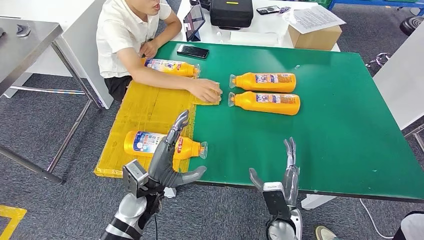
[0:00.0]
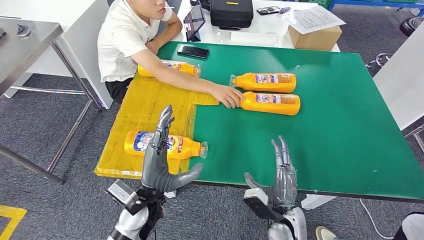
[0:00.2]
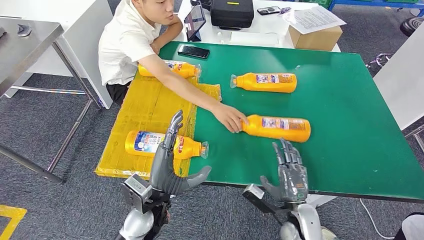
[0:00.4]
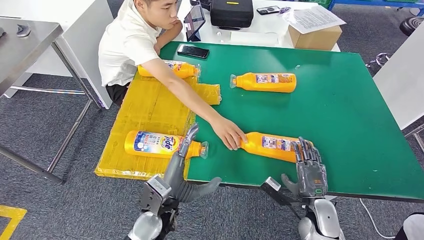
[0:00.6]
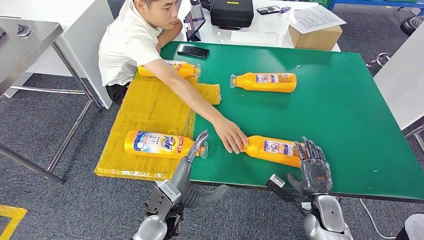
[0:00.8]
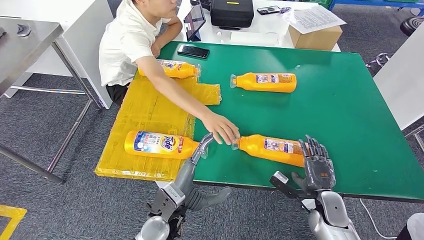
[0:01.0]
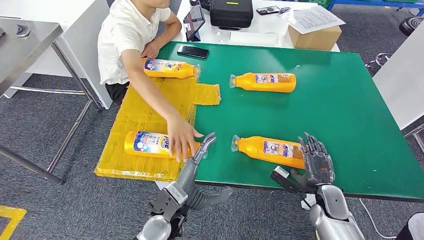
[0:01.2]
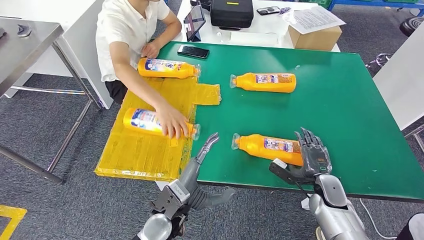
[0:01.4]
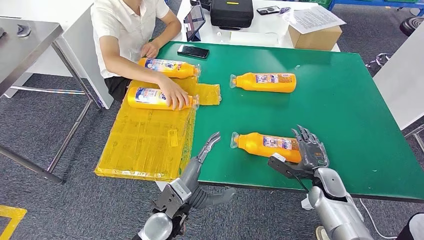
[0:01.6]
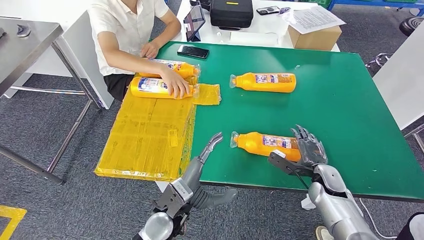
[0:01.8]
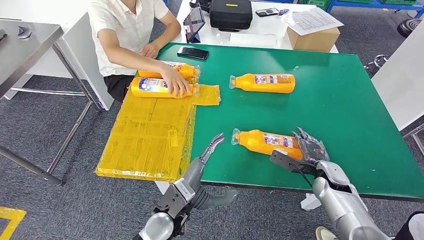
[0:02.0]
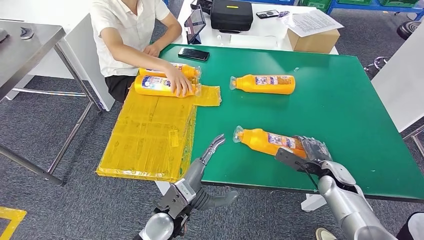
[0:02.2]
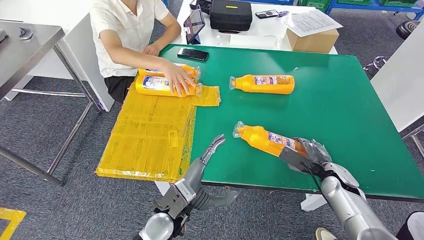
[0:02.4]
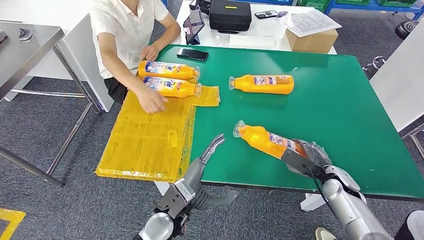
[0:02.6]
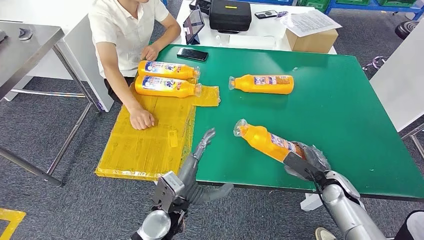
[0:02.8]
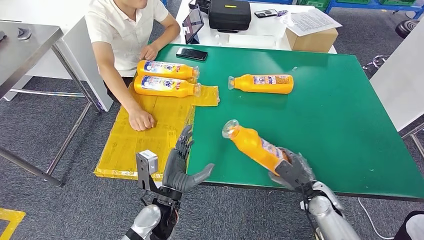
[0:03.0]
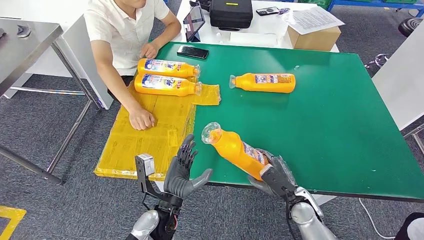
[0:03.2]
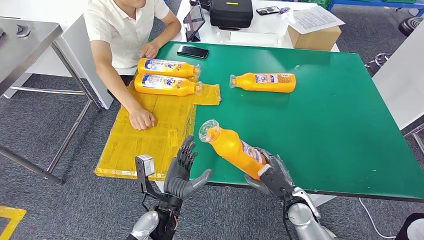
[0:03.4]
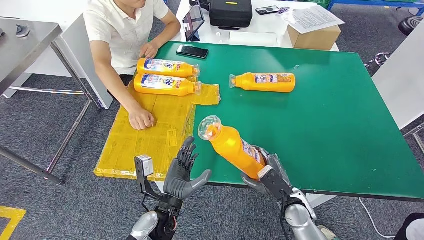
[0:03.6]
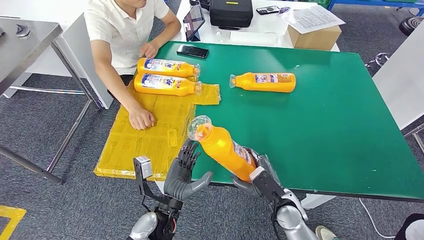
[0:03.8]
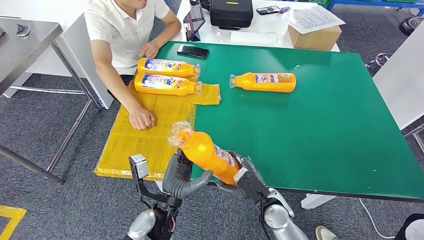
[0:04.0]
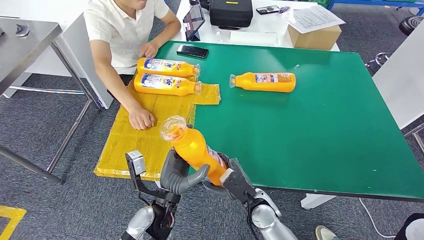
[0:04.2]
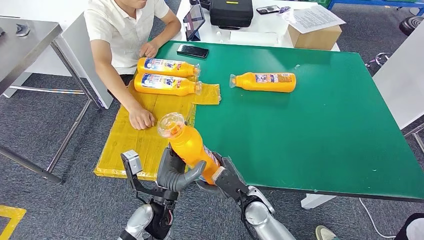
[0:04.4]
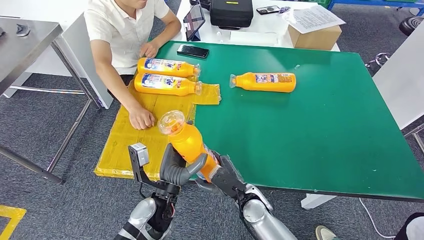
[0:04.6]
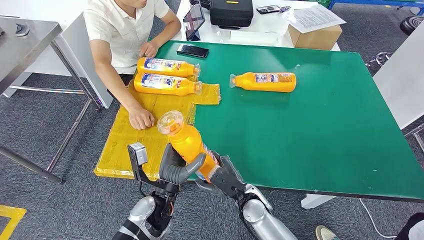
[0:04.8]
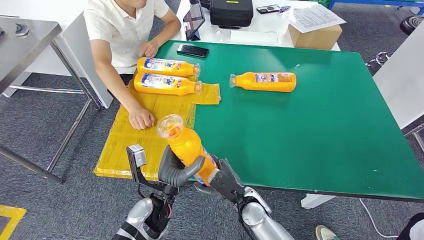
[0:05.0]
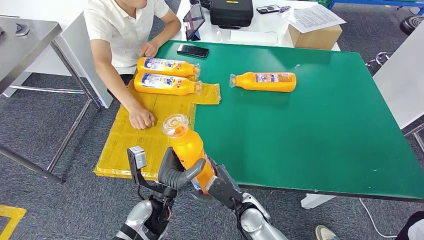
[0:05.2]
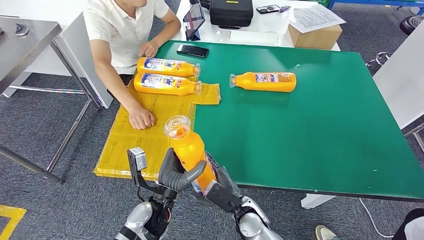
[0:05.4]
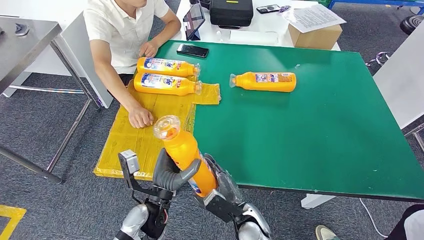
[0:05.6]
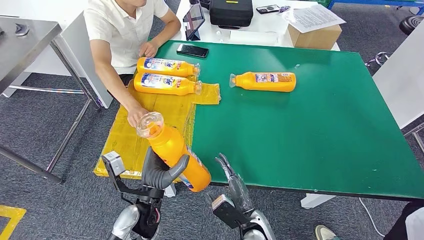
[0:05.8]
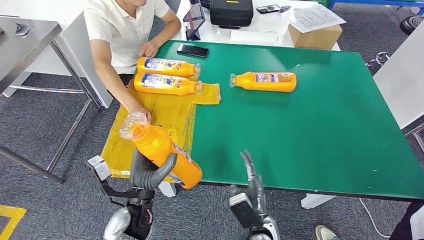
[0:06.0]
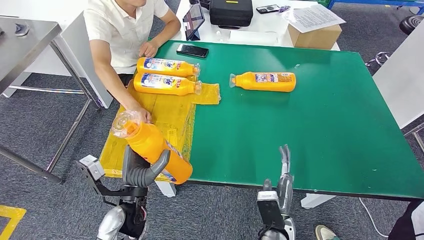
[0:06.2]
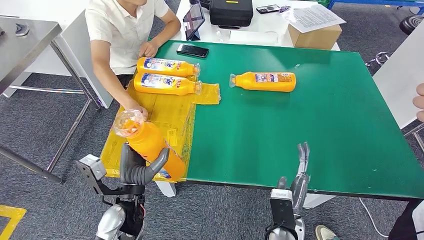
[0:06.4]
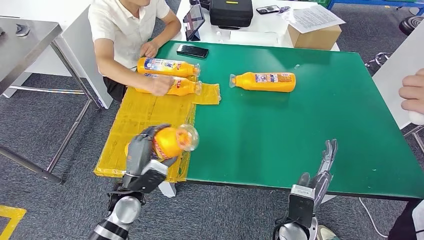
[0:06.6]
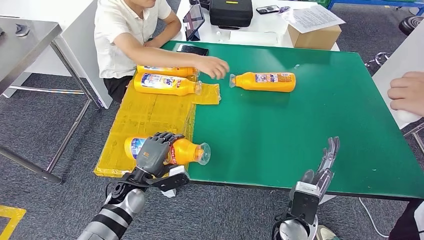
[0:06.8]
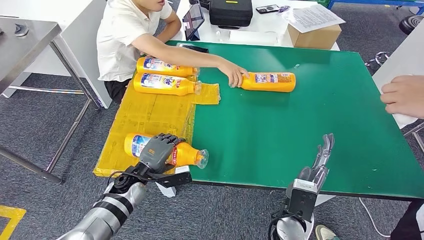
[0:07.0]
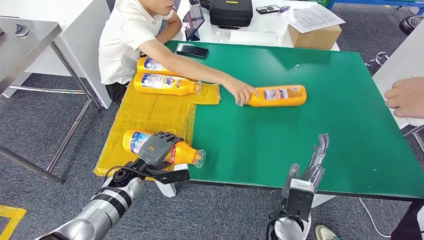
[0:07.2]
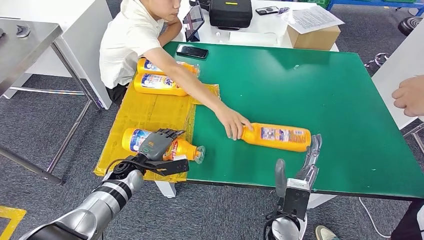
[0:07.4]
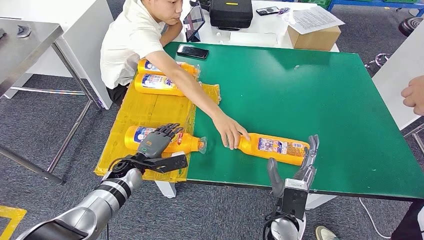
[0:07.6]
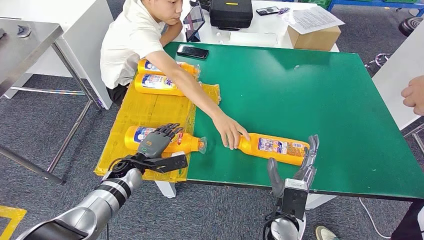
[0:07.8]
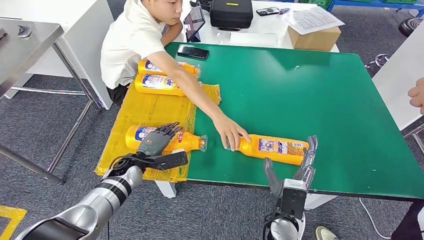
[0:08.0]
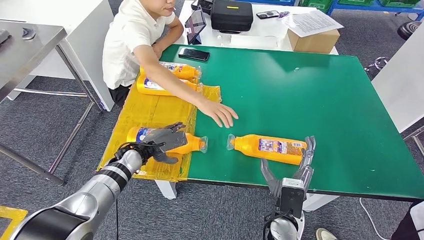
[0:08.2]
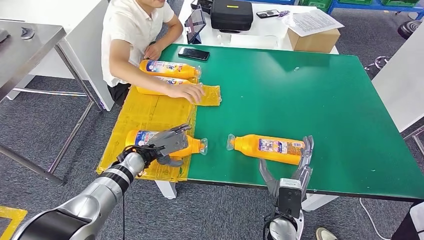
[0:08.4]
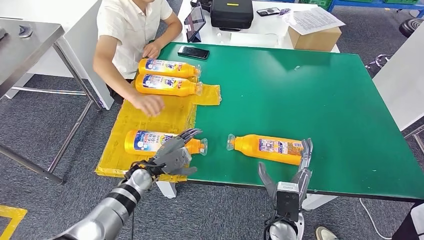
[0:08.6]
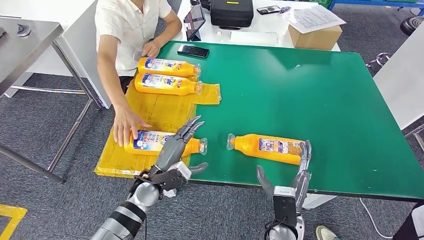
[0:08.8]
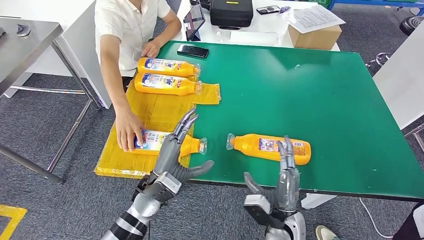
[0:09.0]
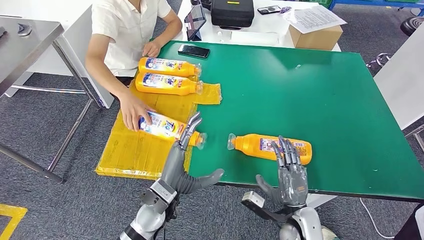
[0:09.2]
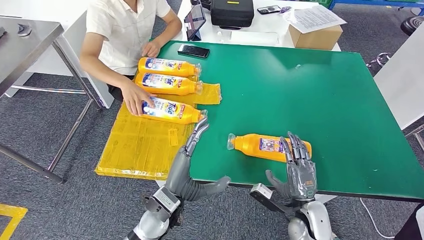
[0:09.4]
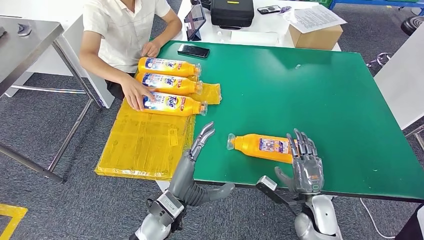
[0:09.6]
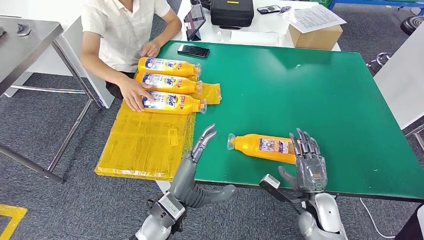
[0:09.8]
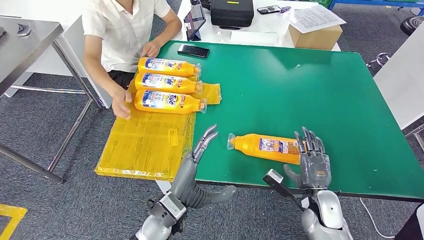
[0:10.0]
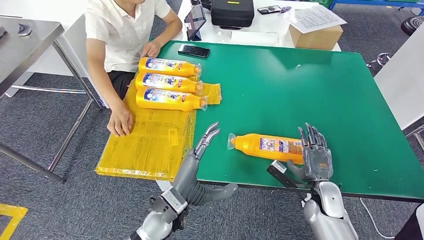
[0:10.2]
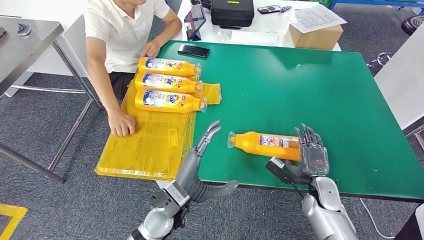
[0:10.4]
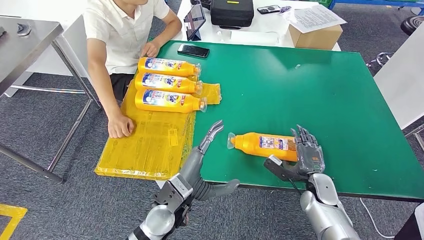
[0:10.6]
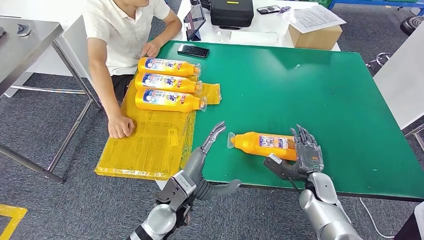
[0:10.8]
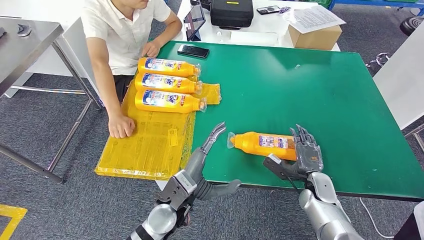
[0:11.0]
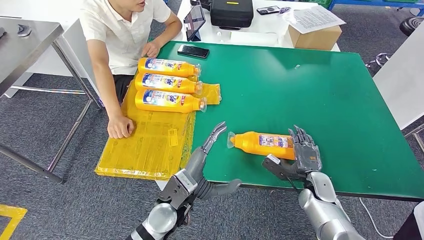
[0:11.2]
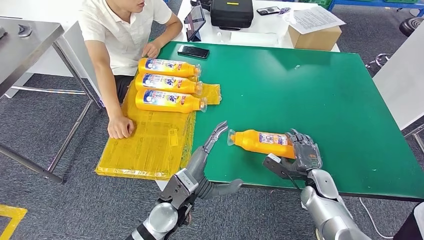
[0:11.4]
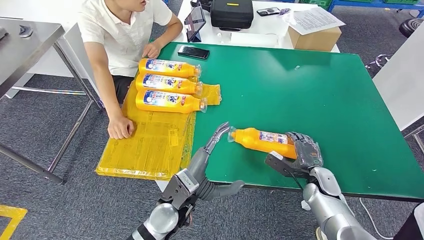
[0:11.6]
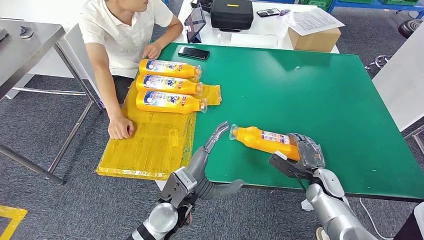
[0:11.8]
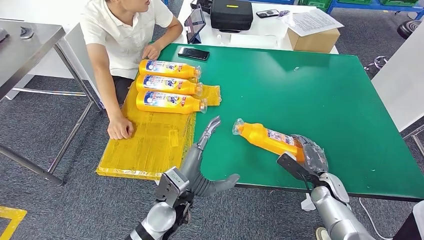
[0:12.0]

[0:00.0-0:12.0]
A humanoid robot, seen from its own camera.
Step, 0:00.4 to 0:03.0: Pick up the bottle from the table.
Step, 0:03.2 to 0:08.2: Flip the bottle to face forward.
0:04.4 to 0:06.0: The left hand is displaced to the left by approximately 5 cm, while the right hand goes approximately 5 cm backward.

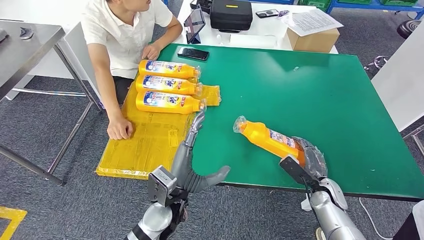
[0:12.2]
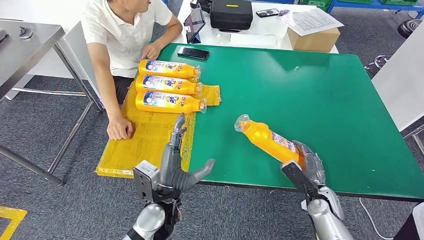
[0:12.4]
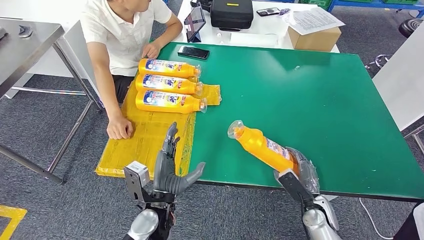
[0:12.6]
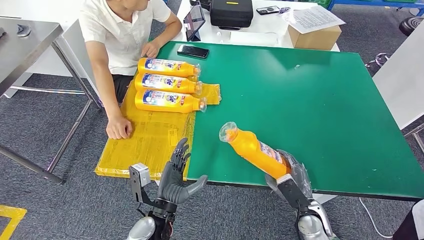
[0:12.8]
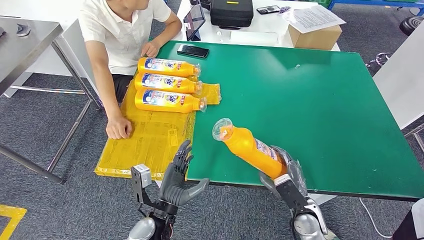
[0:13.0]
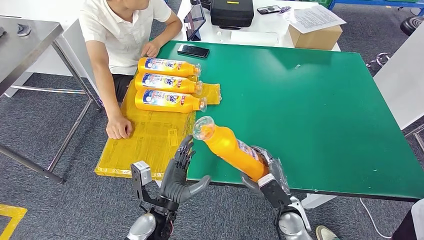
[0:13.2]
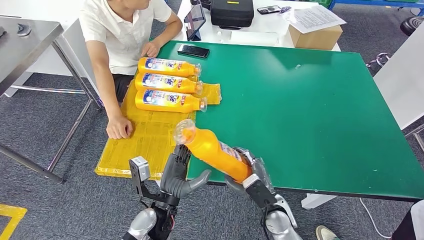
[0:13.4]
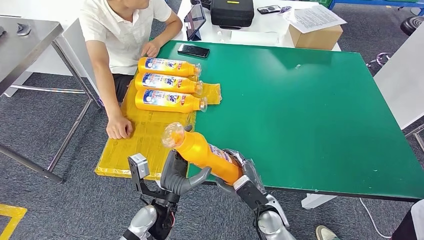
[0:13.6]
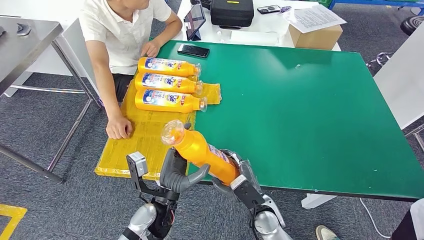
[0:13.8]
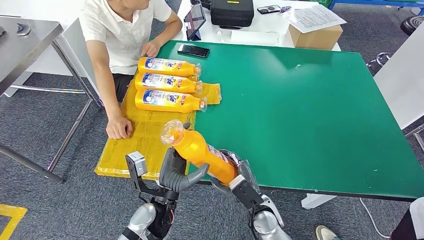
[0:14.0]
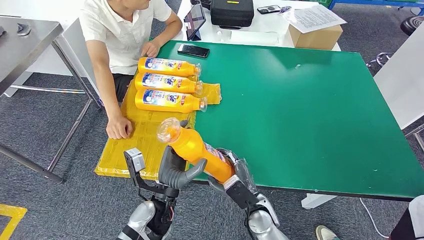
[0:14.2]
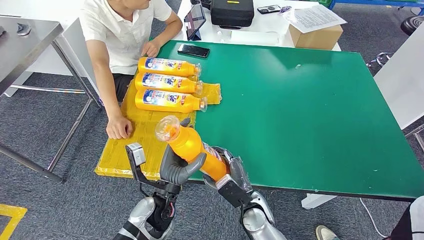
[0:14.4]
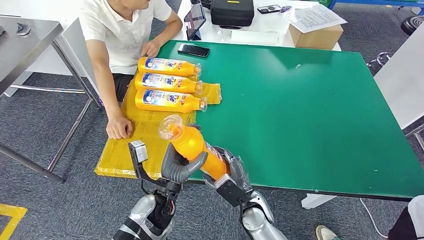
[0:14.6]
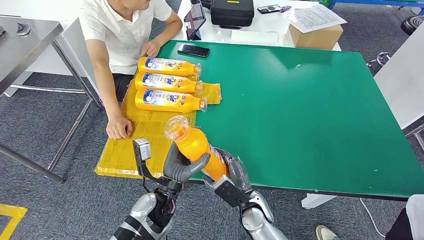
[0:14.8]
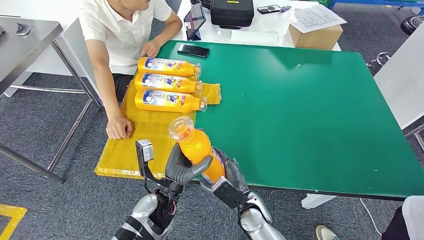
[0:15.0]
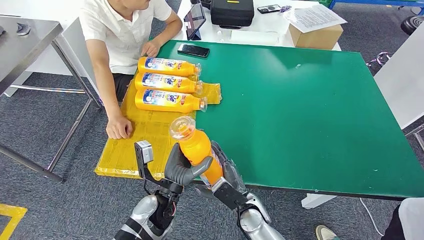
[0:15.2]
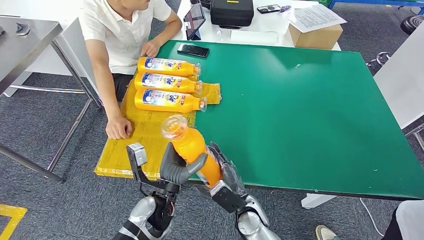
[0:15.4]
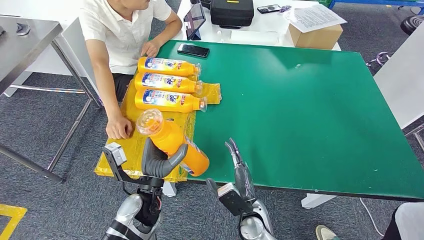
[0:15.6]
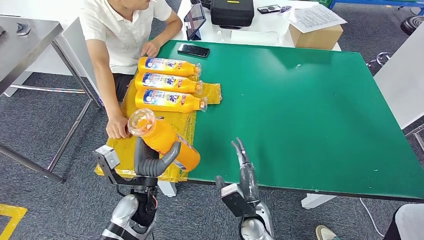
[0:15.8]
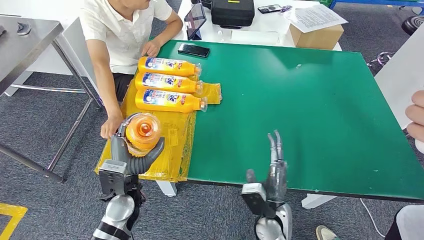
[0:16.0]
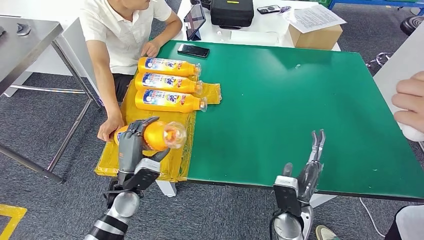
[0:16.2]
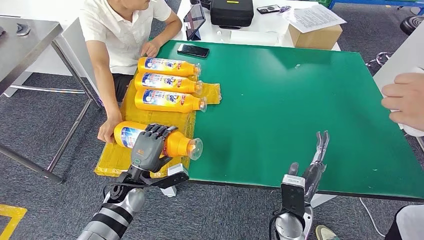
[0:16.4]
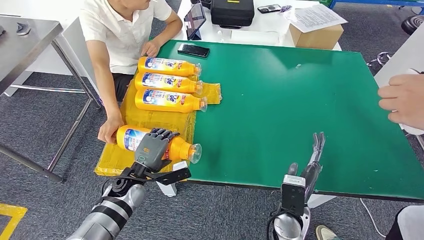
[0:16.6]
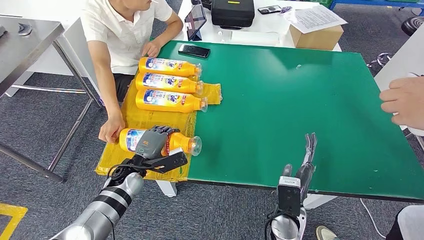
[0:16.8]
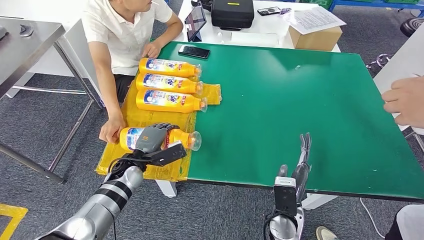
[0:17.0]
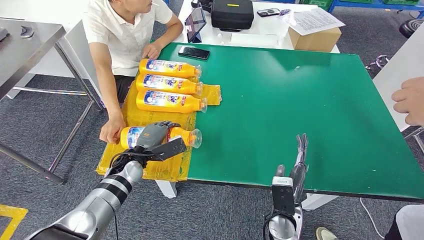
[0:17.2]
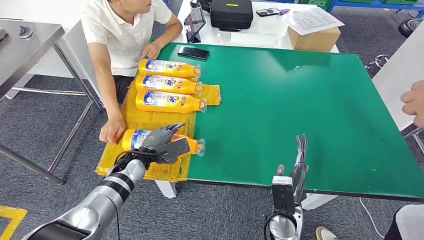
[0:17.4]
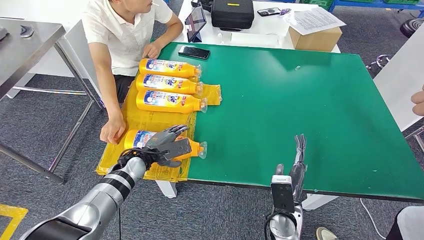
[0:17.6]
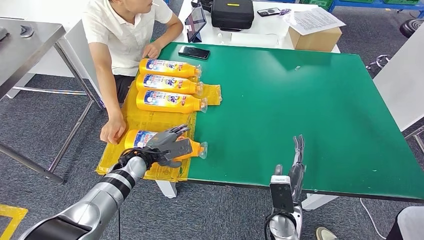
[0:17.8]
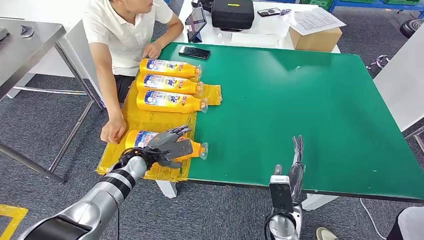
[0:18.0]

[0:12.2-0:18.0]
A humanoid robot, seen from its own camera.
Step, 0:12.8 to 0:17.8: Flip the bottle to face forward.
0:13.6 to 0:15.0: The hands make only small movements.
0:15.0 to 0:16.6: The left hand is displaced to the left and forward by approximately 15 cm. Meanwhile the right hand is displaced to the right by about 10 cm.
